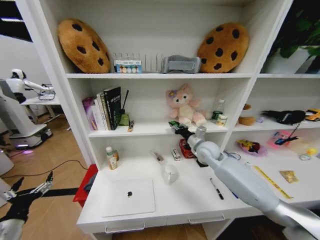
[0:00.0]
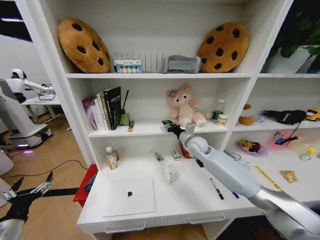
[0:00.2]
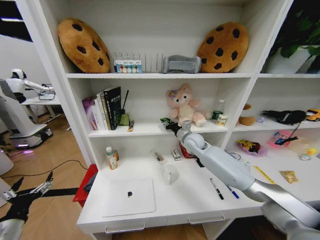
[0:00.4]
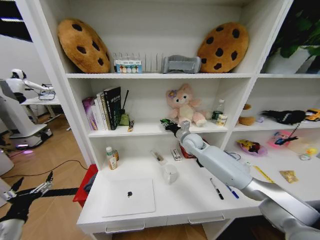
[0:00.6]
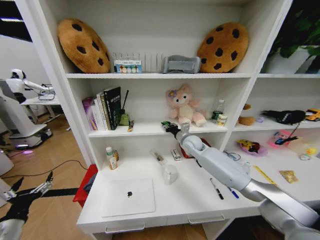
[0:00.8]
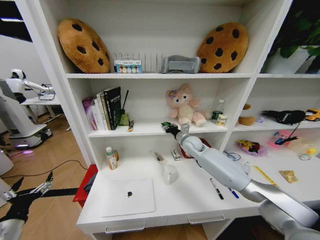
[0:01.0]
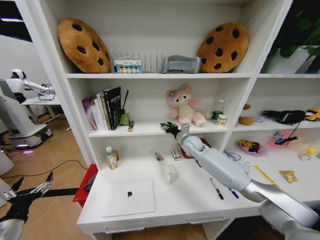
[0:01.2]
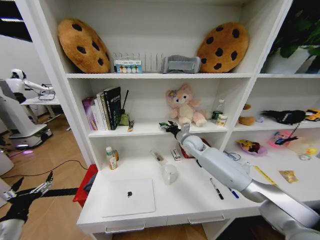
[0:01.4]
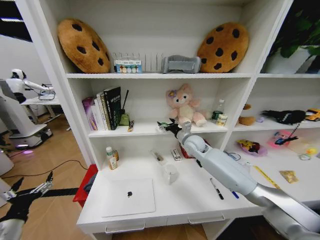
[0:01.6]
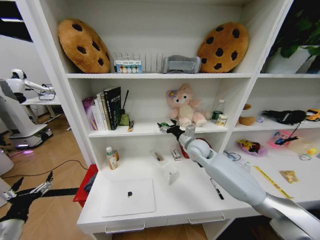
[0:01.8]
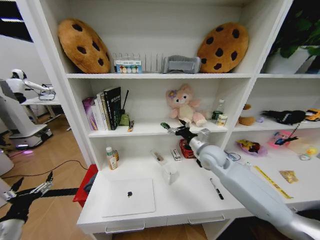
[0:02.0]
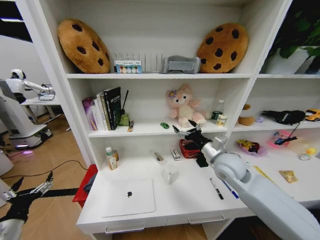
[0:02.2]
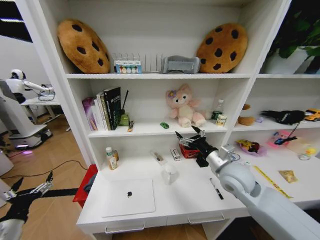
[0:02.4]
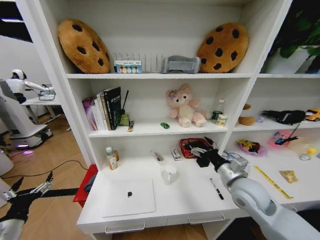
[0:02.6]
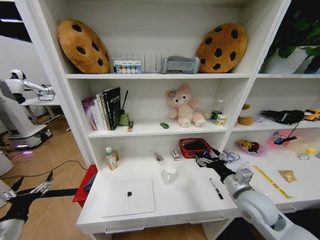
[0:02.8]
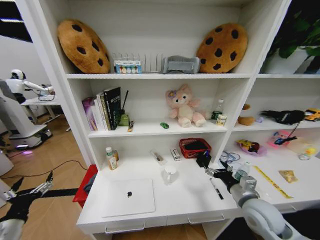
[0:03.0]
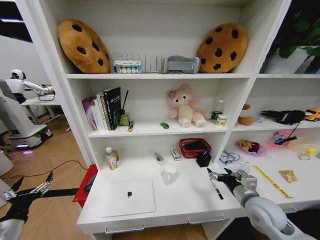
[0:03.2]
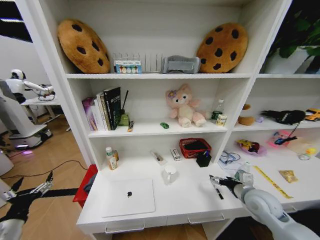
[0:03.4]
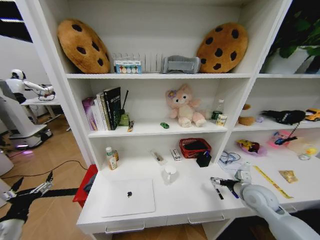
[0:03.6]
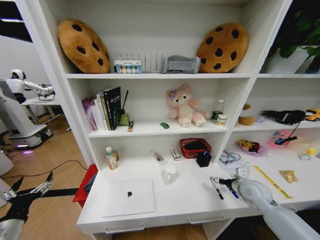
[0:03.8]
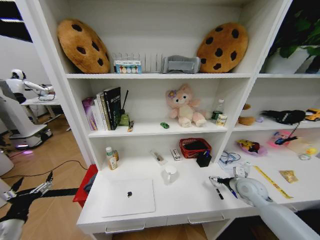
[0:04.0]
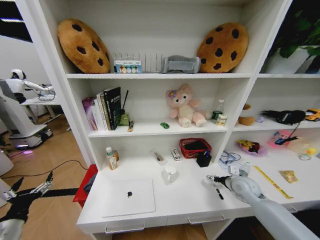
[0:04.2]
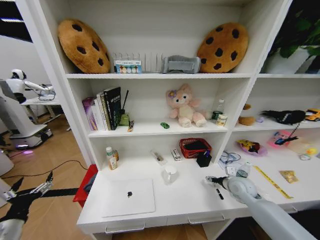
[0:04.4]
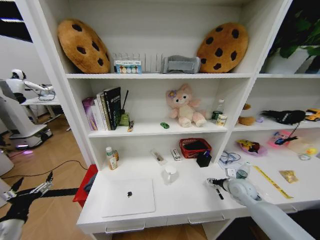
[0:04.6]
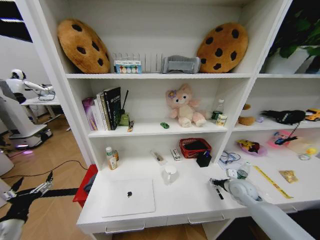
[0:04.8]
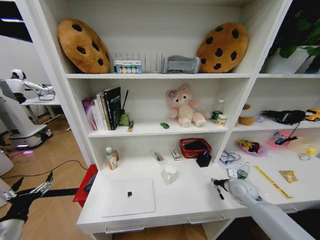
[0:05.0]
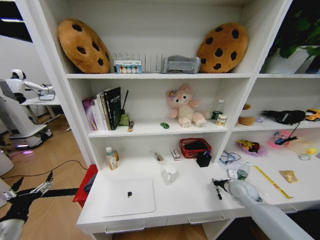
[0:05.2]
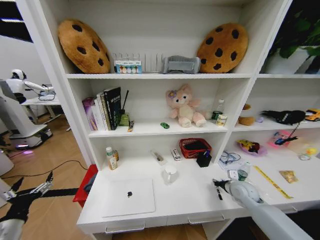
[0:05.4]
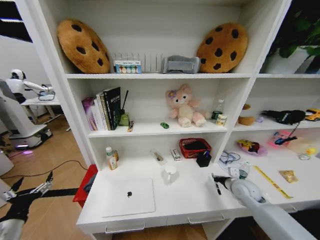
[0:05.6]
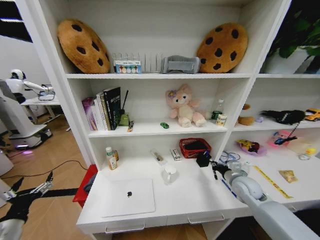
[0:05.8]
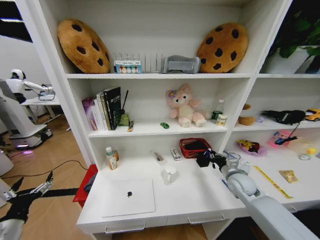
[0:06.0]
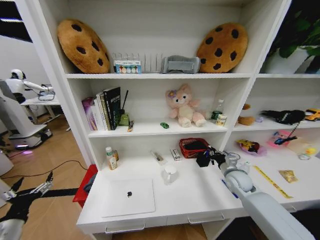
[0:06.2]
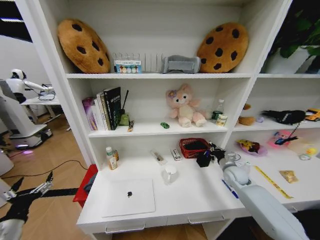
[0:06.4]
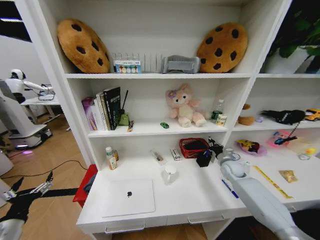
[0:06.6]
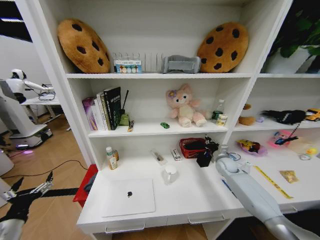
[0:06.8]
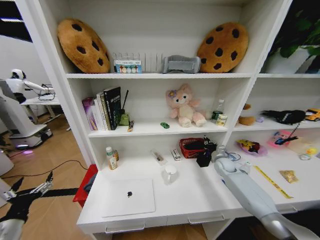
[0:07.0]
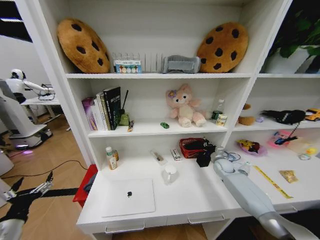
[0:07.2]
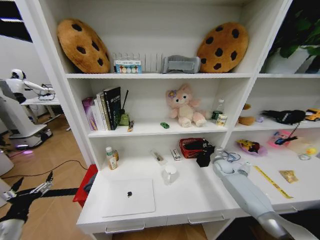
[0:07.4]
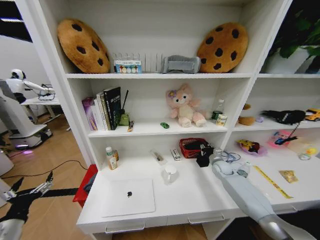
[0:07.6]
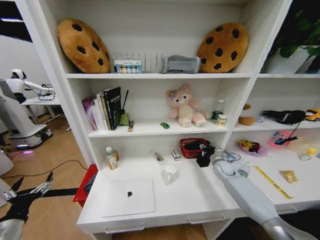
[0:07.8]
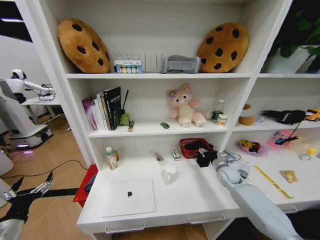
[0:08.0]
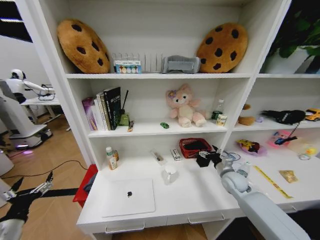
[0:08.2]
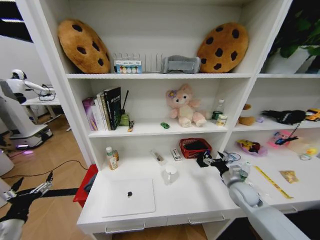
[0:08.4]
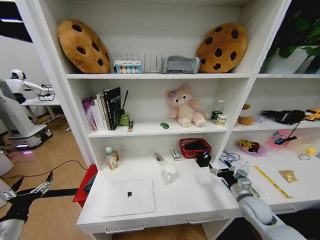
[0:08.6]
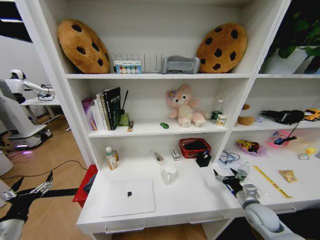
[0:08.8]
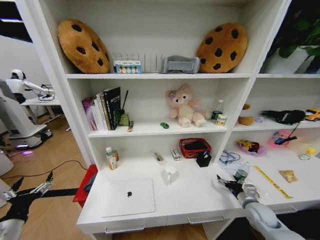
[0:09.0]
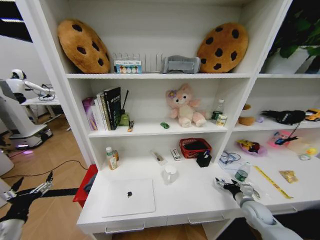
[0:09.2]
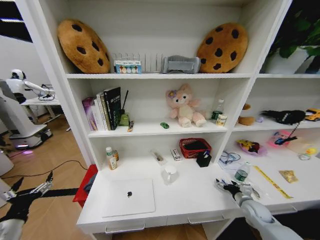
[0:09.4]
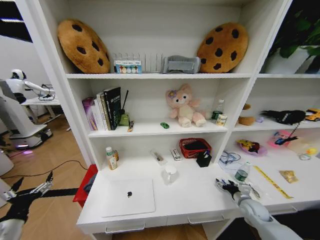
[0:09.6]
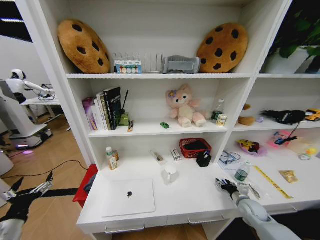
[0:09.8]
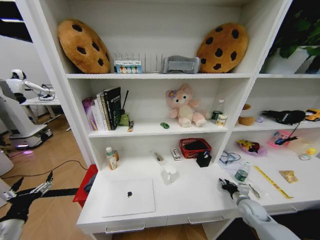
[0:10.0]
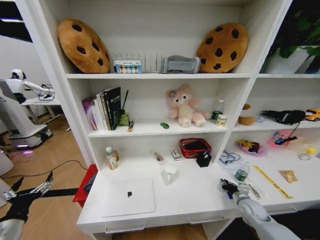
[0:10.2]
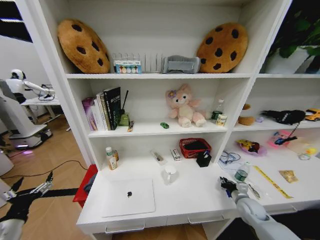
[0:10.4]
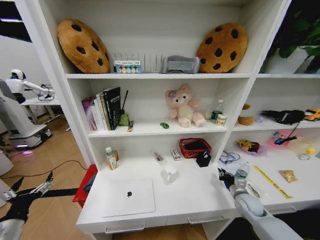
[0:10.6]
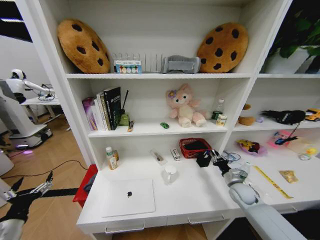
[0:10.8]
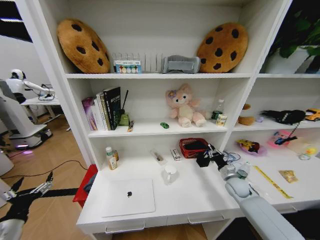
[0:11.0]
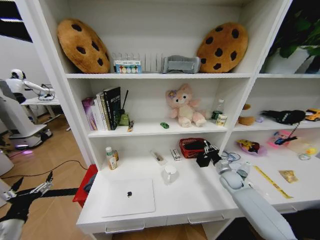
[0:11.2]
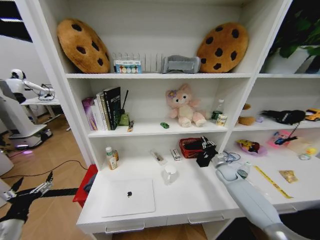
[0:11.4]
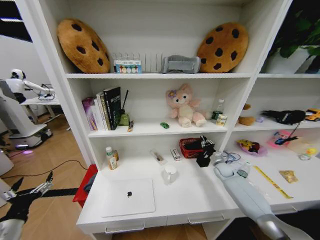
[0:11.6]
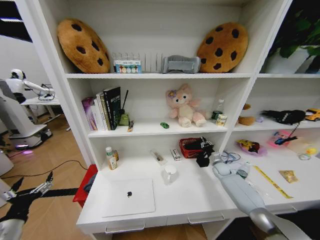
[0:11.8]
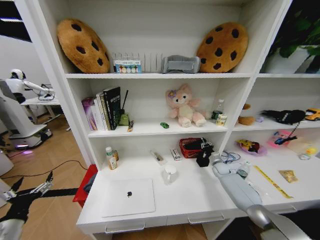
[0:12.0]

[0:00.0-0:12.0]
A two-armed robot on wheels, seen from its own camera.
Task of the whole recording: Organize the objects on the table.
0:00.0 to 0:01.6: The right gripper shifts approximately 5 cm to the left, and opens up.
0:01.6 to 0:03.0: The right gripper shifts some 30 cm backward and to the right.
0:03.0 to 0:04.4: The right gripper moves forward, to the right and downward, approximately 15 cm.
0:04.4 to 0:06.0: The right gripper closes.
0:06.0 to 0:07.6: The right gripper travels forward and downward by some 15 cm.
0:07.6 to 0:09.0: The right gripper goes about 20 cm backward, and opens its fingers.
0:09.0 to 0:10.4: The right gripper closes.
0:10.4 to 0:12.0: The right gripper is displaced forward by approximately 20 cm.

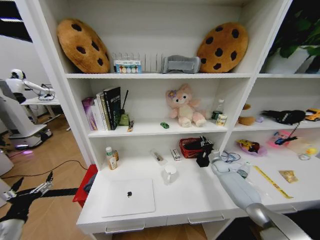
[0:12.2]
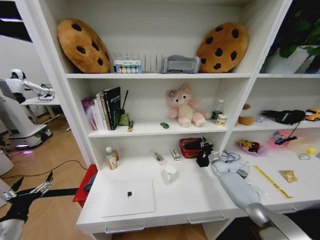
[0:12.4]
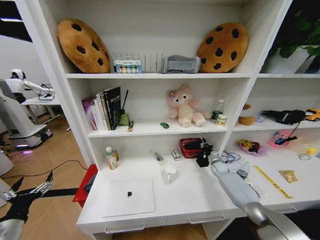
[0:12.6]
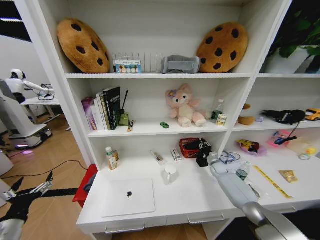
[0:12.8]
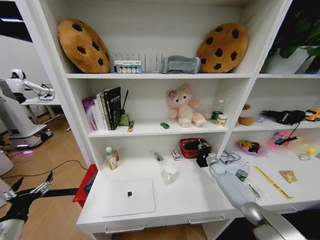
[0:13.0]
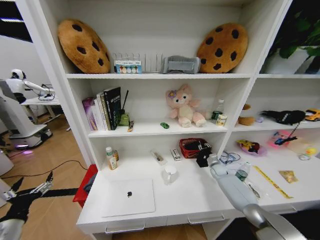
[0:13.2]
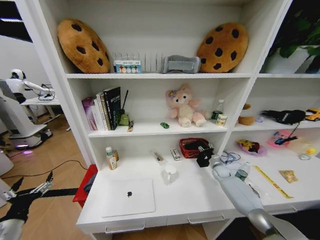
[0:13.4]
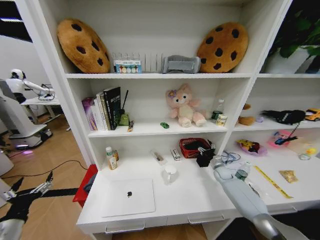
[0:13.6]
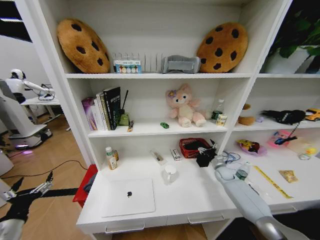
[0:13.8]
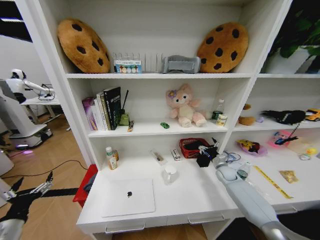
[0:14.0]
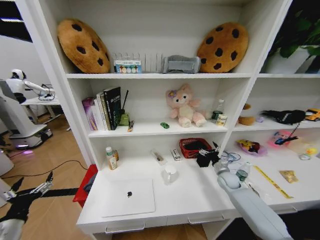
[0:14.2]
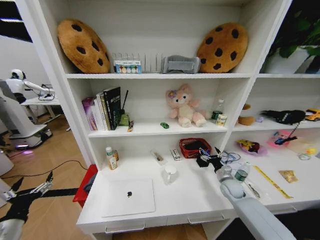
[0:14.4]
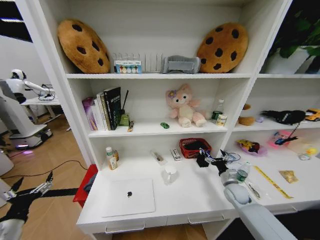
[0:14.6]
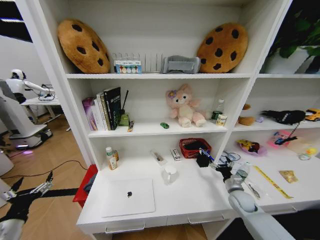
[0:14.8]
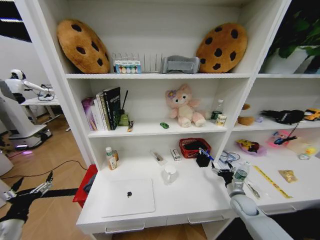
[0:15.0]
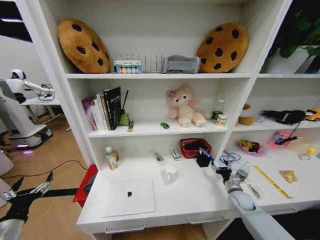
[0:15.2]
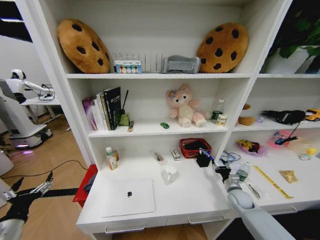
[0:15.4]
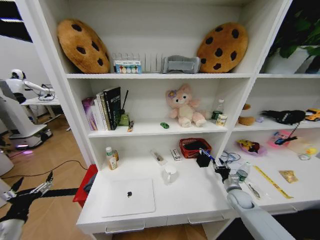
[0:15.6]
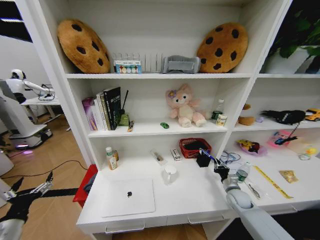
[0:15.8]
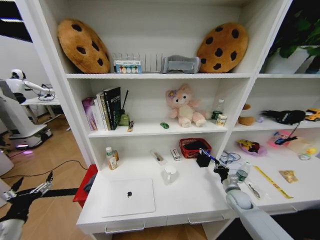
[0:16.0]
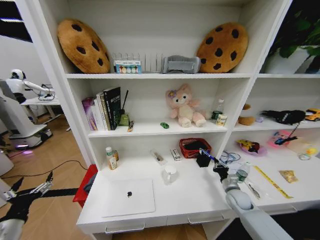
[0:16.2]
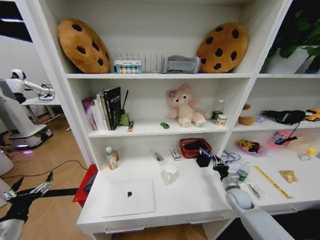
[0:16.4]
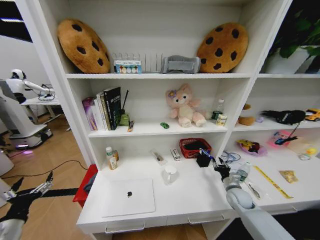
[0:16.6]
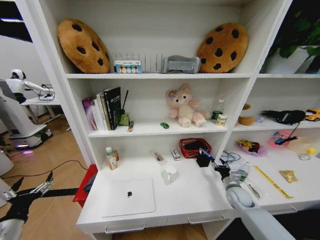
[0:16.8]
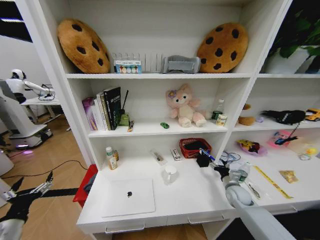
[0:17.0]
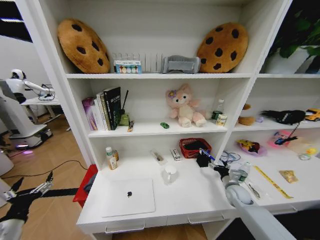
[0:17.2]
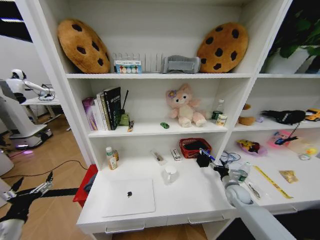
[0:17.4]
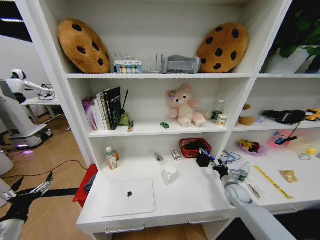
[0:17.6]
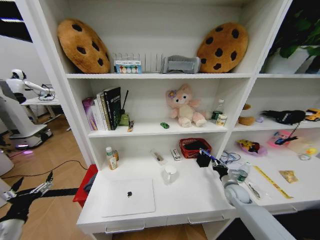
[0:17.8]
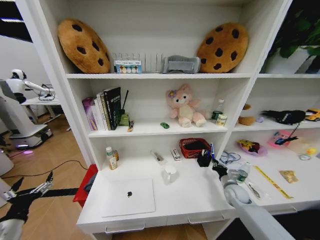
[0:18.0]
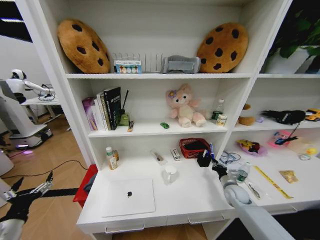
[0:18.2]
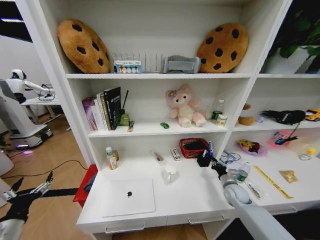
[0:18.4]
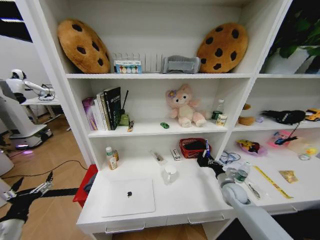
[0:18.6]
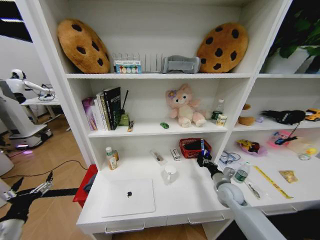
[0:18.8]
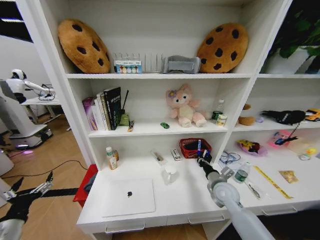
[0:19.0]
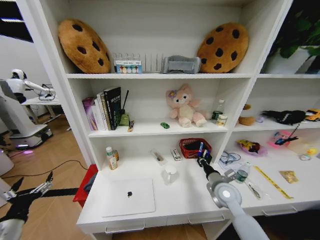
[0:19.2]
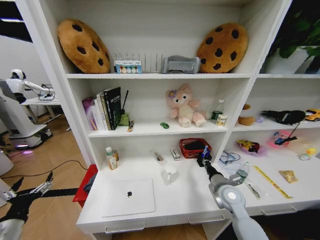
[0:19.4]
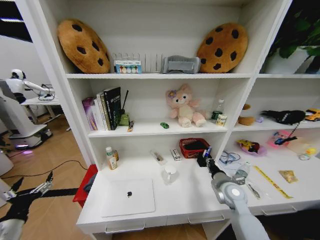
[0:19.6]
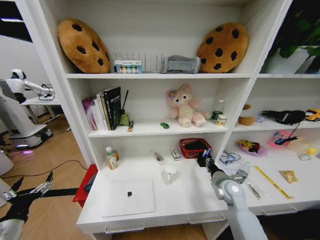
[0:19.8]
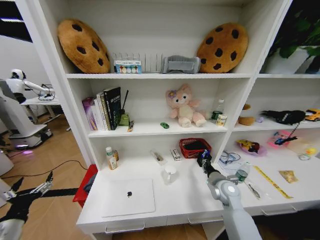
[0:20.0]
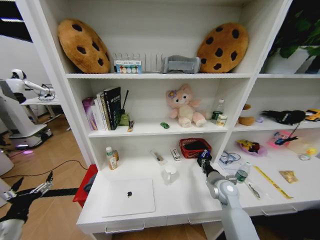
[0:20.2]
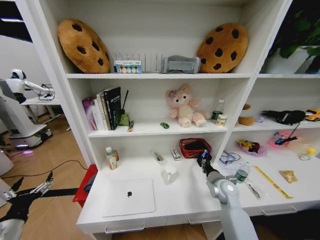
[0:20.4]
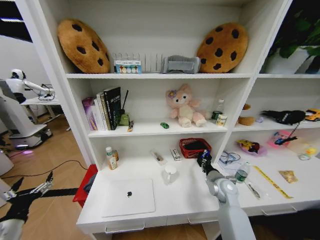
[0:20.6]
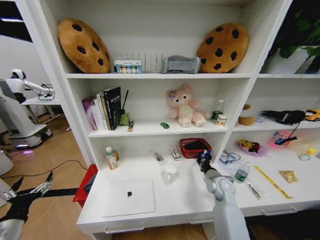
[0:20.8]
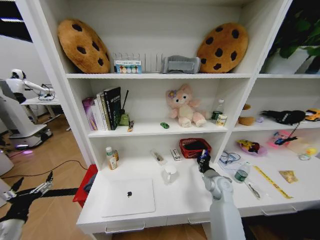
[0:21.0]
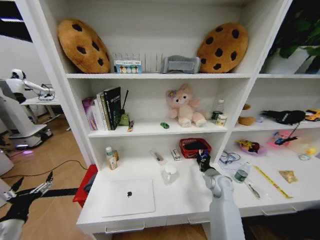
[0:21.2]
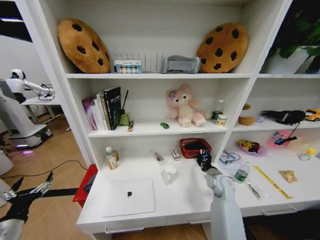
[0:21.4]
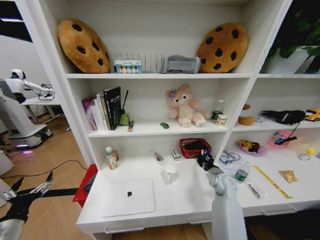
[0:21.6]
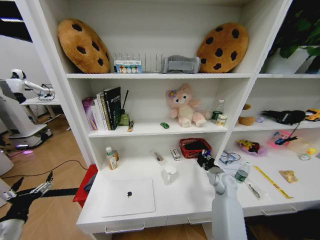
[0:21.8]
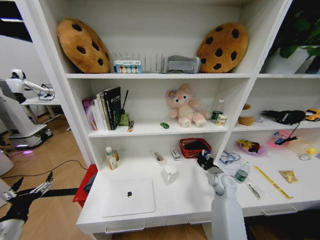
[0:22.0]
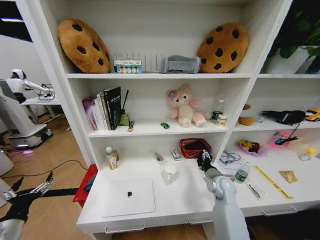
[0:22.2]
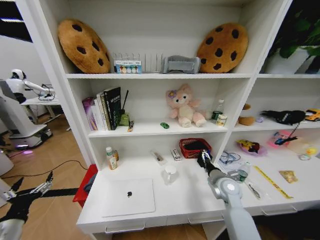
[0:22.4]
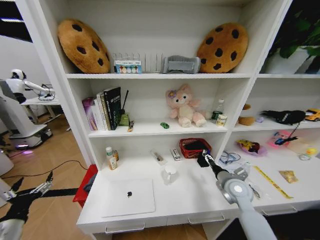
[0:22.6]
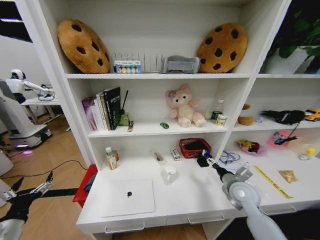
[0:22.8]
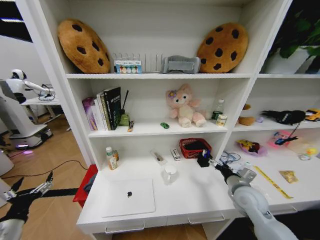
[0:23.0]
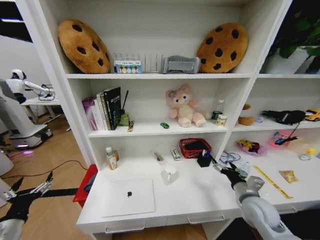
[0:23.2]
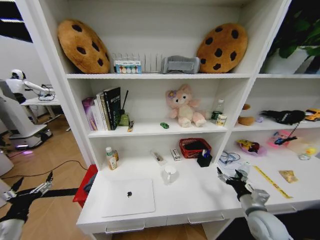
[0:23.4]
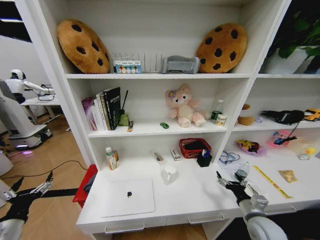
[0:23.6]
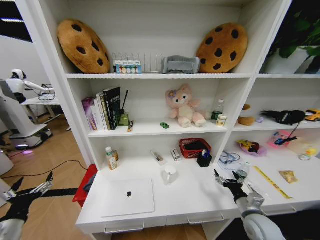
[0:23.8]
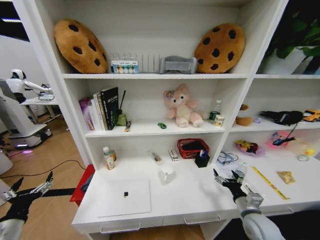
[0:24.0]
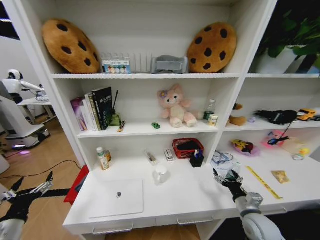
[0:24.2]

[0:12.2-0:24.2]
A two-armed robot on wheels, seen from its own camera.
Task of the whole recording: Organize the objects on the table.
0:12.2 to 0:13.8: The right gripper opens its fingers.
0:13.8 to 0:15.2: The right gripper goes some 15 cm backward.
0:15.2 to 0:16.6: The right gripper closes.
0:16.6 to 0:18.2: The right gripper opens and closes again.
0:18.2 to 0:19.8: The right gripper travels upward and to the left by about 15 cm.
0:21.2 to 0:22.6: The right gripper changes place by roughly 5 cm, and opens up.
0:22.6 to 0:24.2: The right gripper moves backward and downward, roughly 15 cm.
